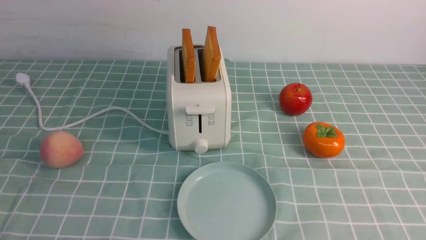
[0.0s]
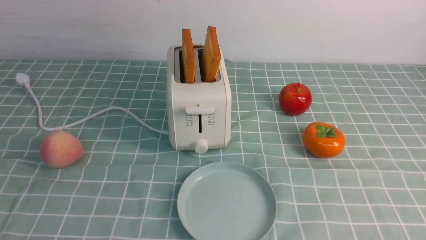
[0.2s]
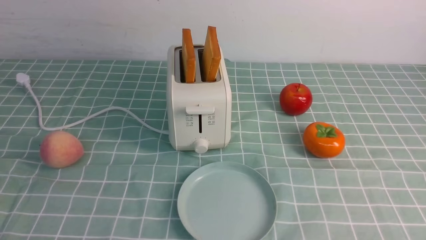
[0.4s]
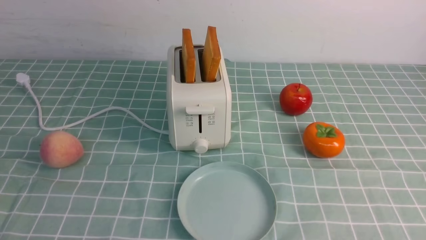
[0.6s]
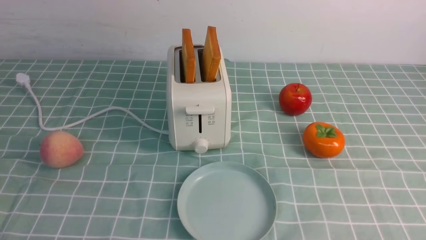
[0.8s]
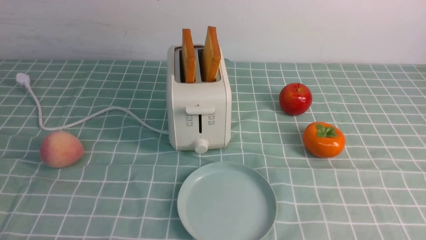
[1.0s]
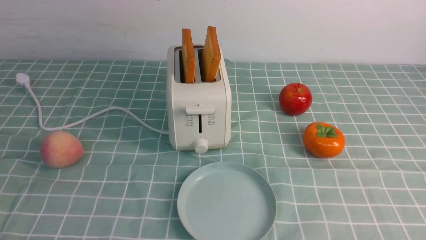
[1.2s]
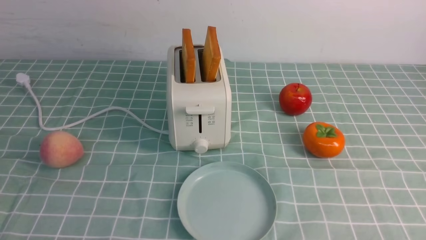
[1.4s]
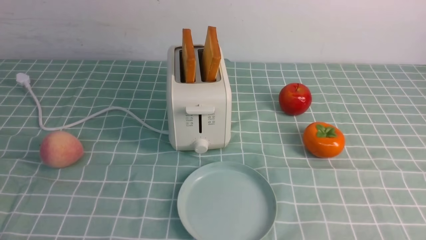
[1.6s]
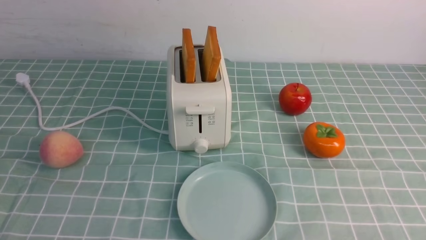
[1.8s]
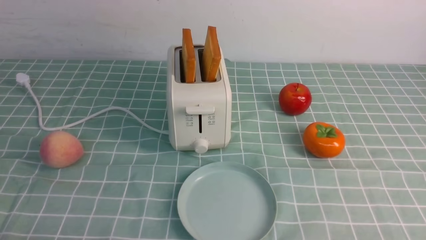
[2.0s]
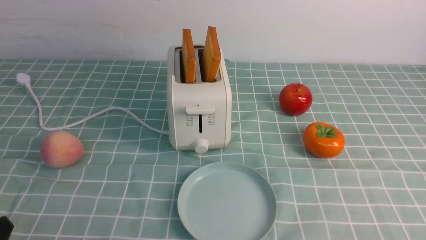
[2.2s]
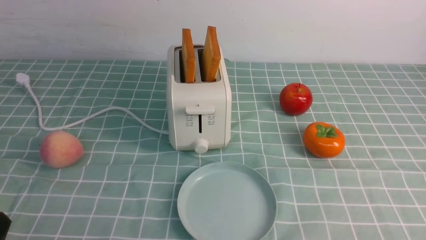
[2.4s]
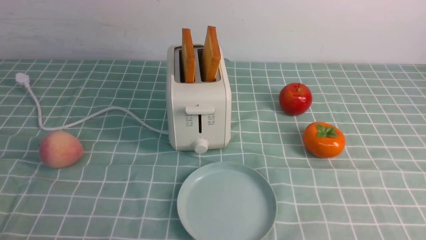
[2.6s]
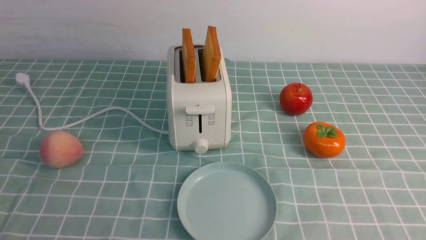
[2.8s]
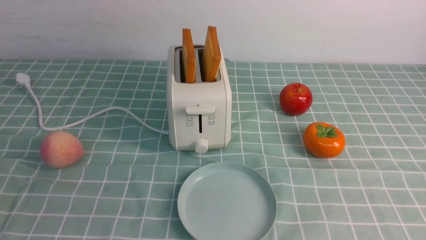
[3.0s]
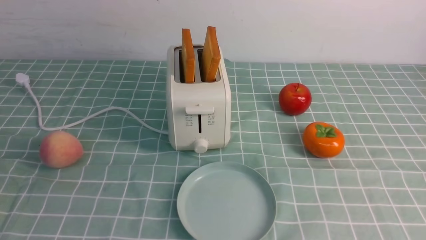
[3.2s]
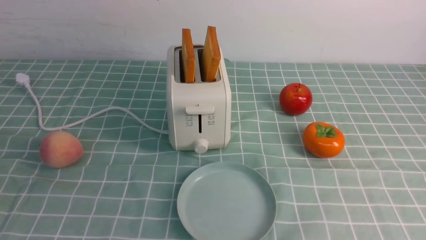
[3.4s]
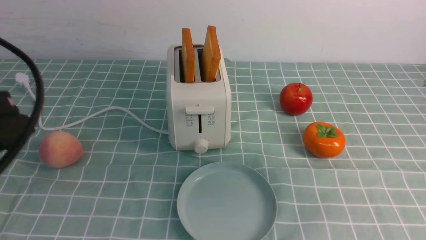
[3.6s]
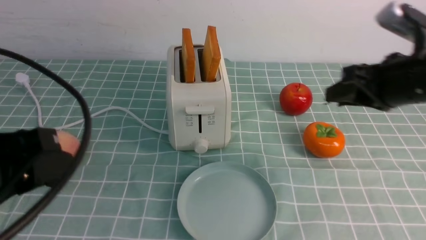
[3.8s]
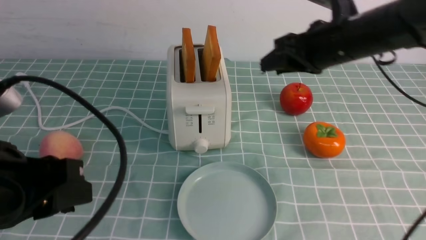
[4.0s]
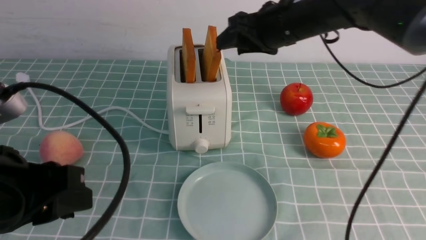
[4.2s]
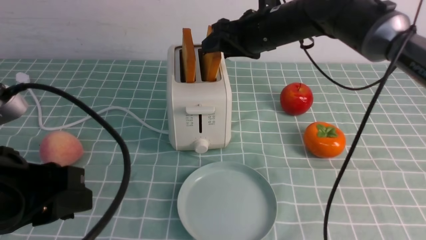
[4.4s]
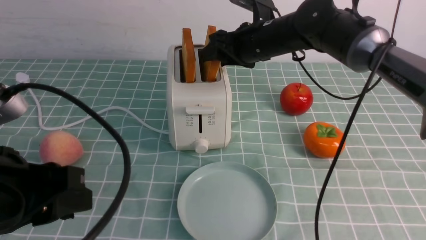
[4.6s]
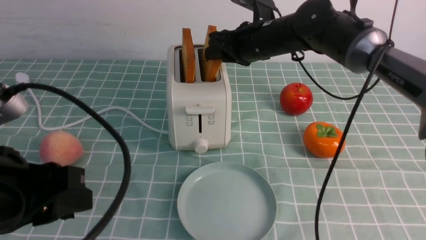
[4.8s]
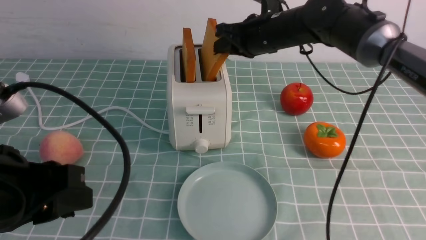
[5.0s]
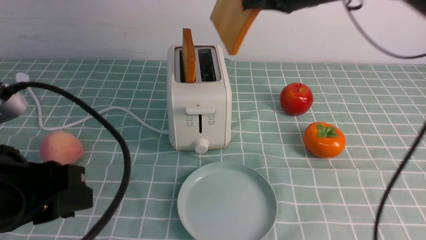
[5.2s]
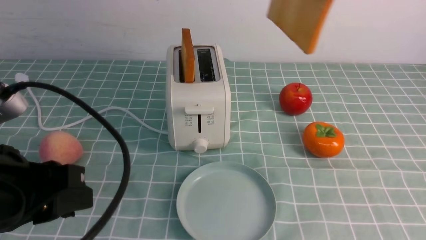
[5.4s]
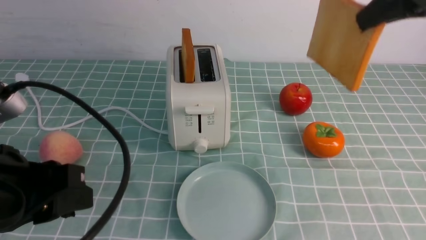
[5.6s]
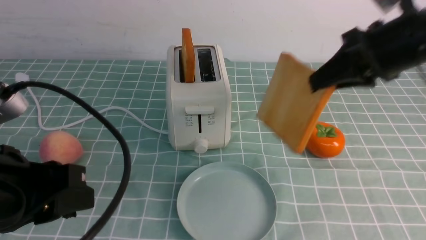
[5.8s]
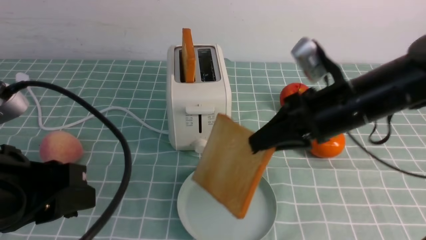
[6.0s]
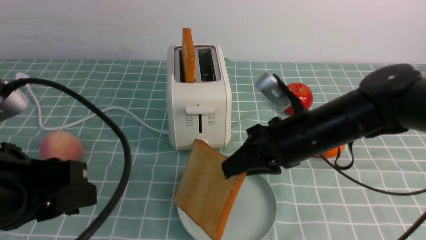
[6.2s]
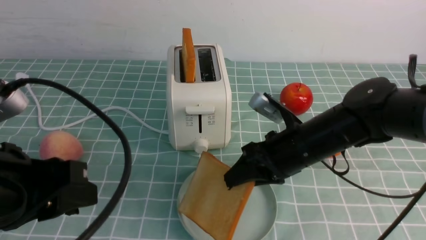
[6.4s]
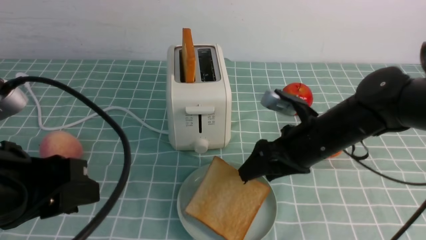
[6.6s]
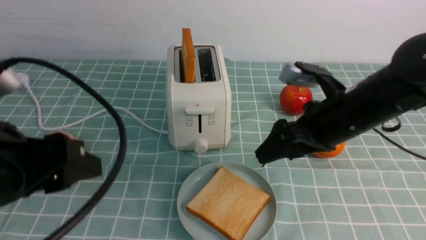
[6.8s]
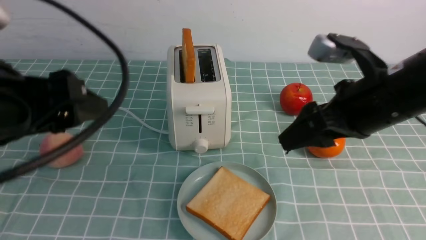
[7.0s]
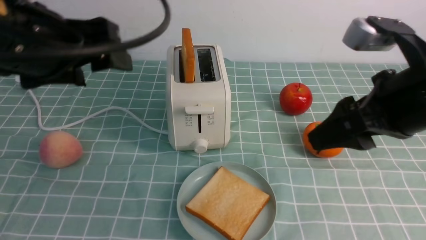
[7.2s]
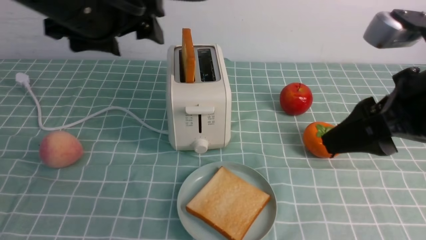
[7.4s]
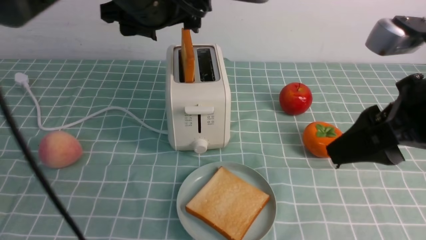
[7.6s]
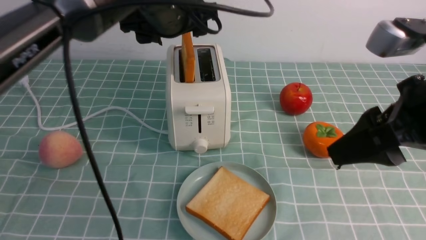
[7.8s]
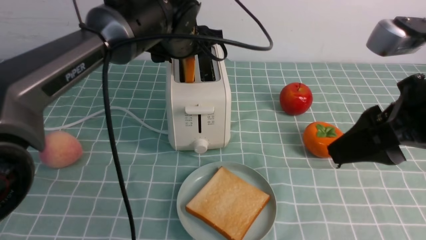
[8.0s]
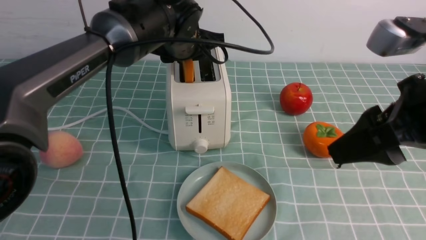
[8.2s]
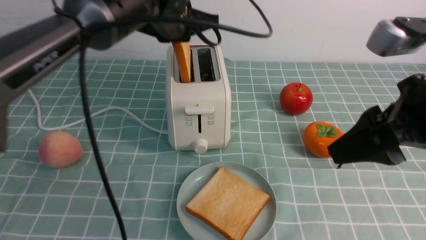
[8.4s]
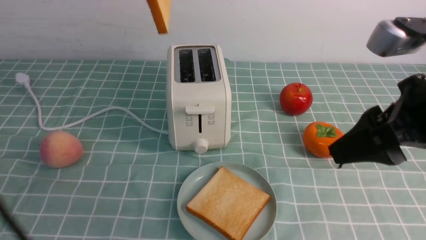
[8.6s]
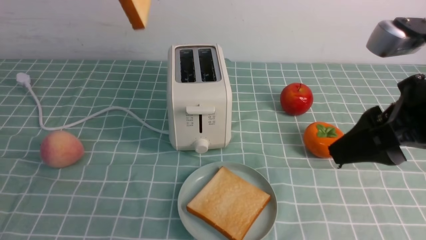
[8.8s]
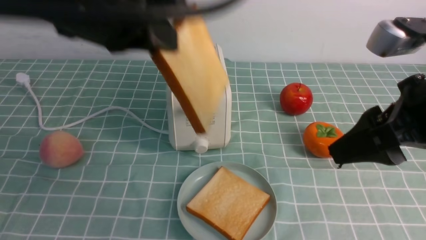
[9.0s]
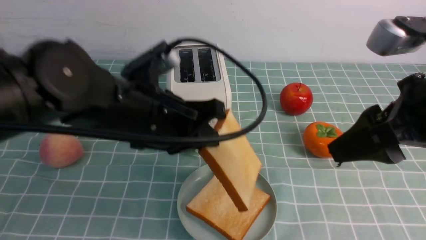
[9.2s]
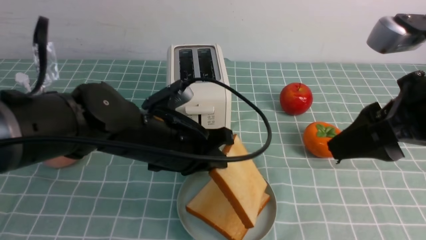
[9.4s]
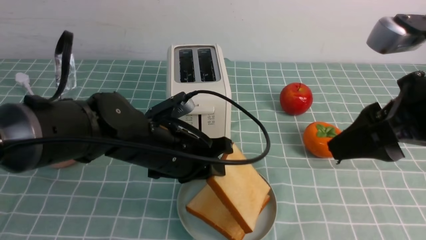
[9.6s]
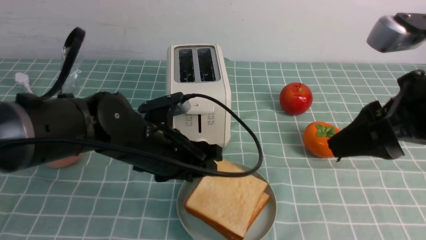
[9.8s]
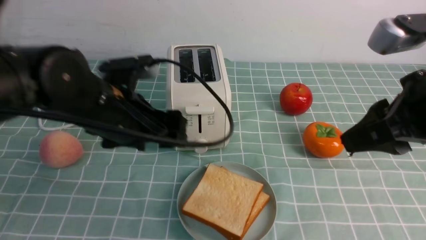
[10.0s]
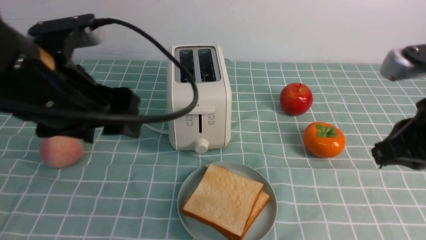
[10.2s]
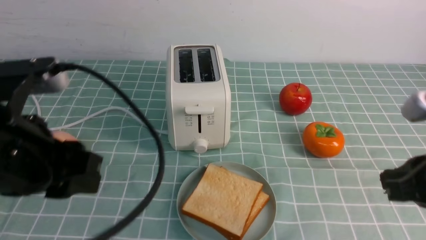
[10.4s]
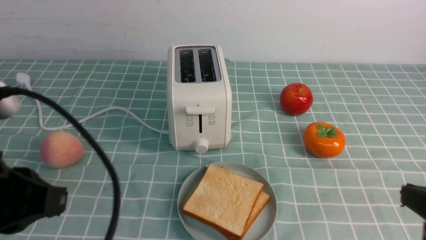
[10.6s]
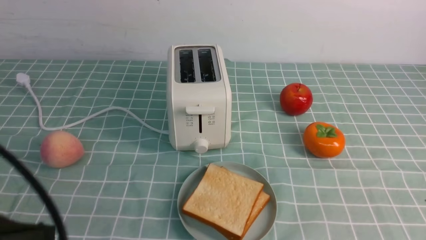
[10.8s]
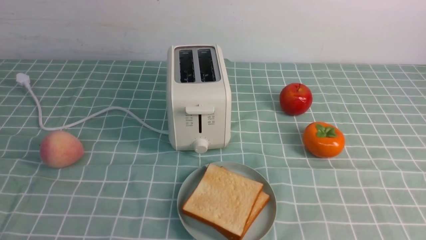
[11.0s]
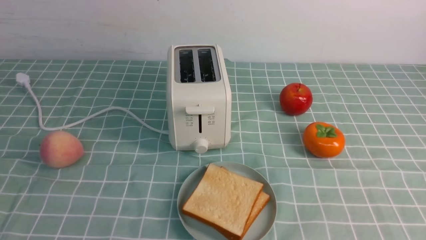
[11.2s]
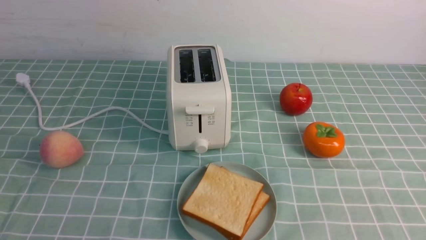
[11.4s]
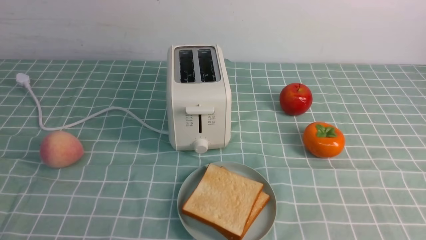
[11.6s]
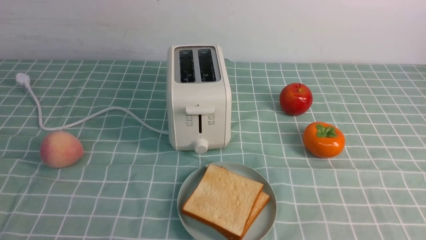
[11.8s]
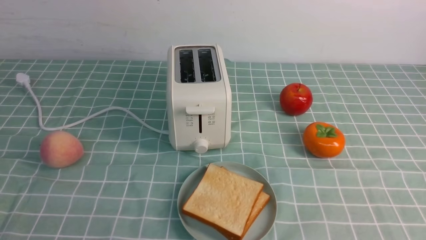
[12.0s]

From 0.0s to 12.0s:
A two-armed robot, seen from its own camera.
Task of the whole recording: take toasted bread from bread machine on blue coffee table place on plate.
Step, from 0.0s to 5.2s: use the right arm to take out a slice of bread.
Step, from 5.4s to 6.8s: use the right arm to put a slice of bread into the plate.
Step, from 7.0s to 8.4s: use the left arm to take out a slice of bread.
Step, from 8.8s to 9.8s: use the left arm to put a slice of bread into the empty plate.
From 3.0s to 4.4s: The right gripper moves forward and to the left, about 50 cm, and opens its fingers; the left gripper goes about 10 cm forward and to the right.
From 4.4s to 6.0s: The right gripper travels backward and to the right by approximately 15 cm, and closes its fingers.
From 6.0s to 7.6s: The left gripper moves forward, to the right and upward, approximately 25 cm, and opens up; the right gripper travels backward and upward by about 15 cm, and opens its fingers.
From 7.6s to 9.0s: The left gripper travels backward by some 10 cm, and closes up.
From 9.0s to 10.4s: The left gripper shifts about 15 cm downward, backward and to the left, and opens. The right gripper travels downward by roughly 5 cm, and closes its fingers.
From 10.4s to 12.0s: The right gripper heads backward and downward, covering roughly 15 cm, while the left gripper is displaced backward, downward and to the left by roughly 20 cm, and closes its fingers.

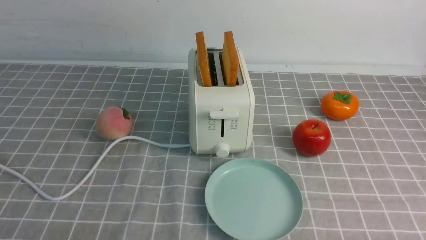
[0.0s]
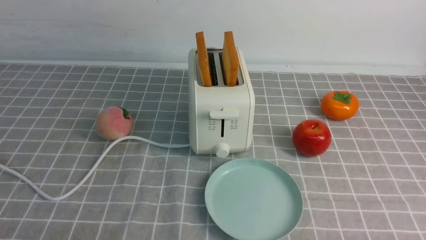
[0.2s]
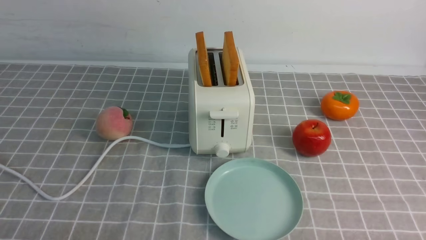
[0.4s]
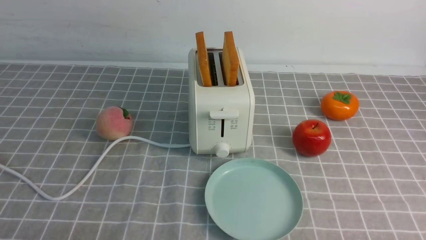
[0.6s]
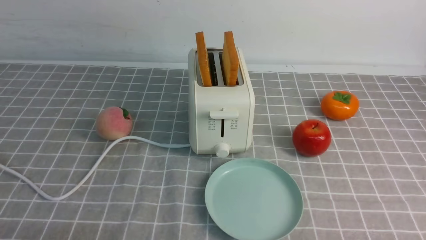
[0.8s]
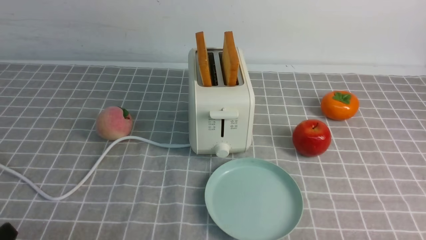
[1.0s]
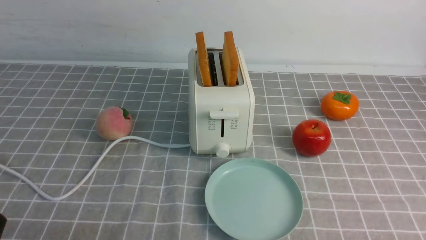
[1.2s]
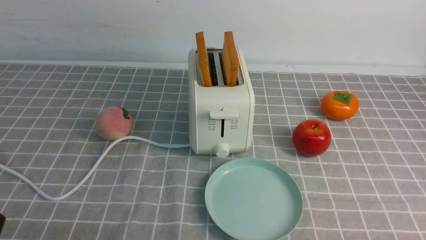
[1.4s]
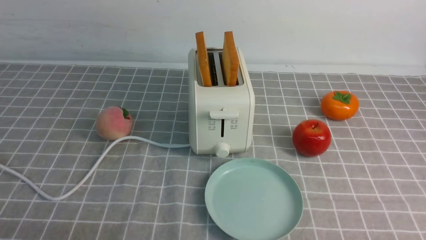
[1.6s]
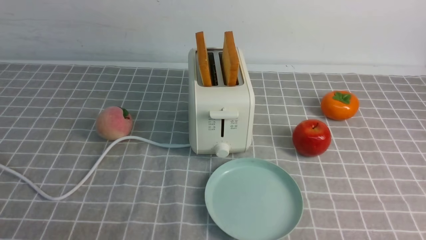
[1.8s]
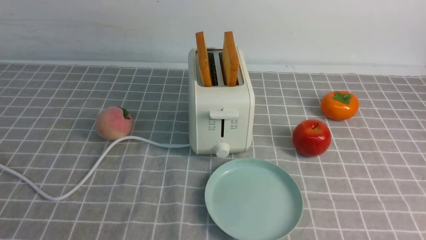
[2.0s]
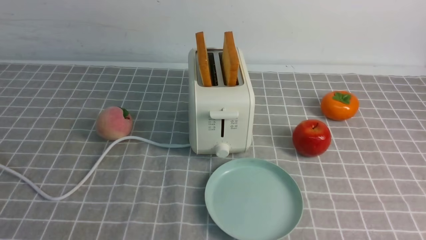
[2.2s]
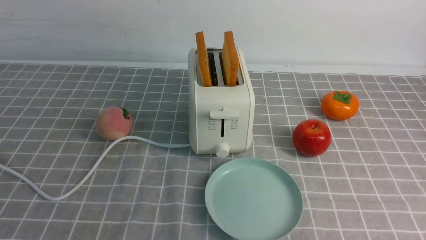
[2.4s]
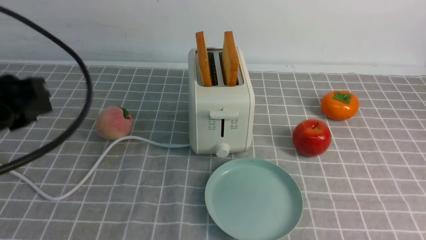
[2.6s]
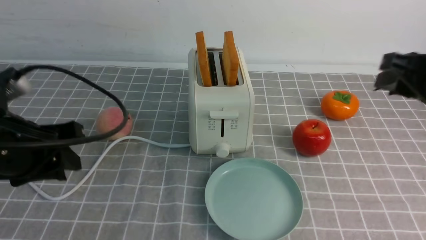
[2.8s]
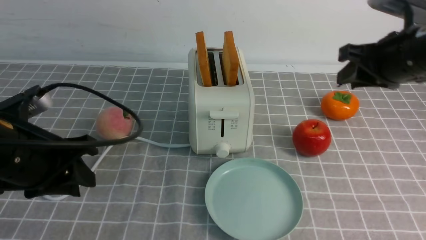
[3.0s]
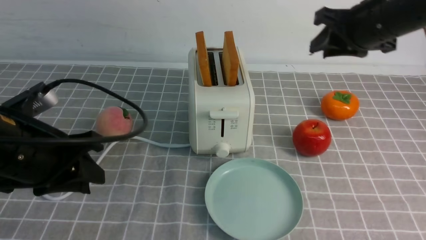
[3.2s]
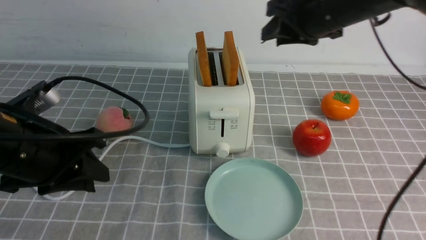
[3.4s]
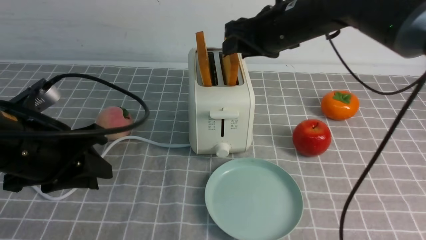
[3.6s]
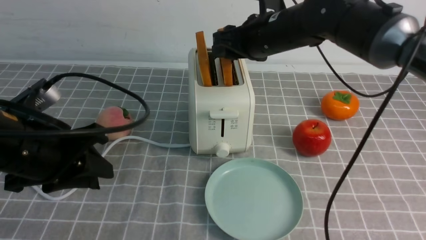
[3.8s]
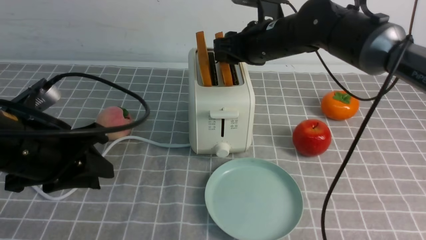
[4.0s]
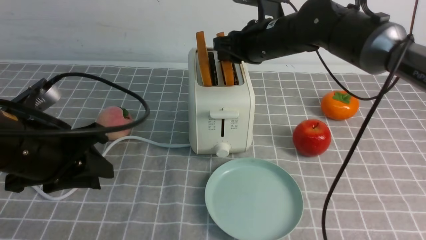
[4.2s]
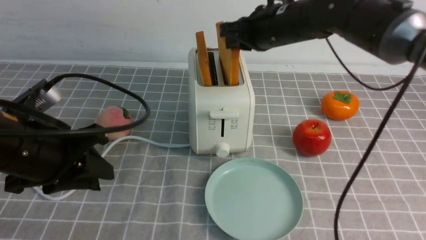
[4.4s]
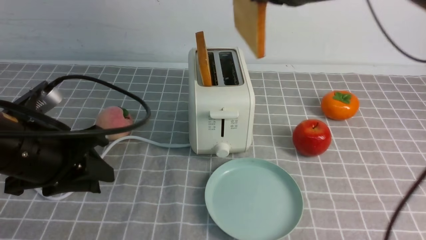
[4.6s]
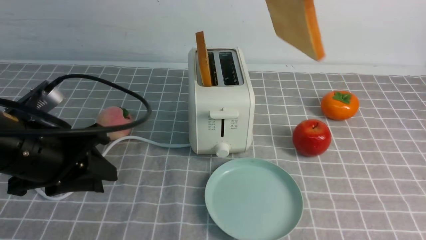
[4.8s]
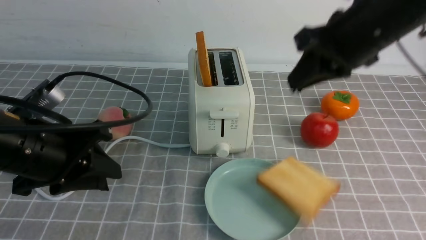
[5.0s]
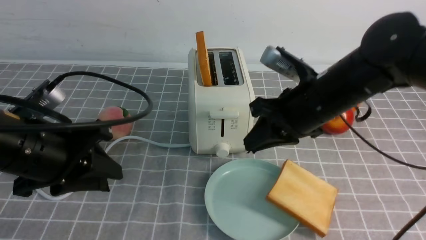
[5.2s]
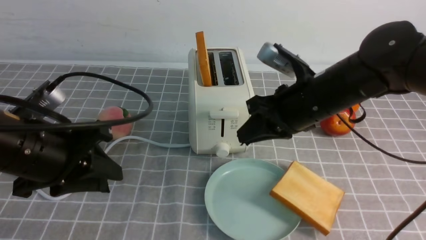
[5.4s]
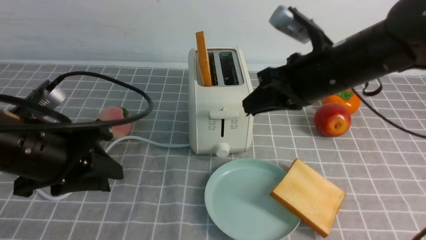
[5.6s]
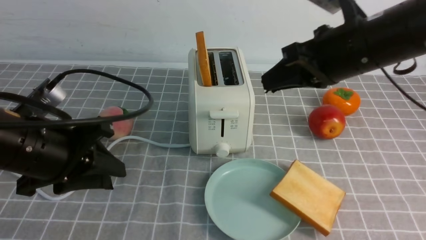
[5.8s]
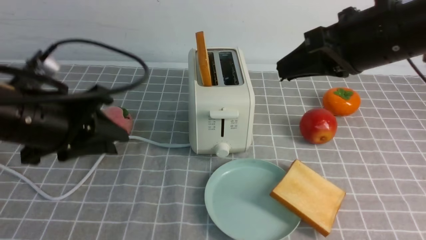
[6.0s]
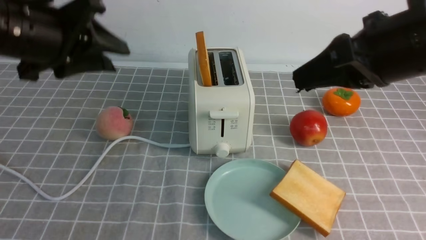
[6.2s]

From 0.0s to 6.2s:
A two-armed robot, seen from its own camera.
Task of the whole recording: take toasted bread from bread machine on grey coffee table place on plate.
Step, from 0.0s to 4.6s: use the right arm to take out a slice of bread.
Step, from 4.8s to 5.6s: use the right arm to put a slice of bread into the plate.
From 1.6s to 3.2s: The left gripper heads forward and upward, covering some 20 cm; the right gripper is displaced forward and upward by approximately 35 cm.
From 3.2s to 4.6s: The right gripper moves to the left, about 10 cm, and closes up.
From 4.6s to 6.2s: The right gripper goes about 15 cm backward. Meanwhile the left gripper is displaced upward by about 10 cm.
